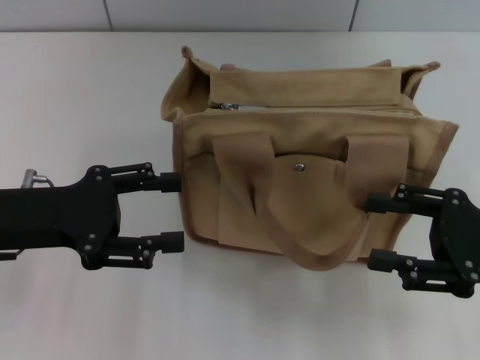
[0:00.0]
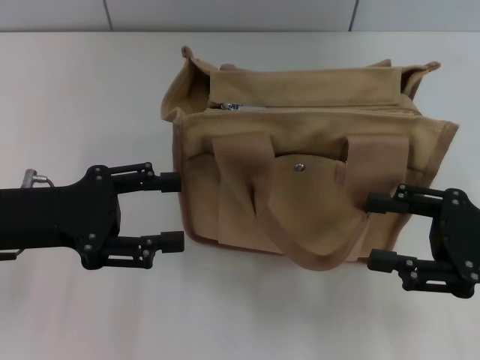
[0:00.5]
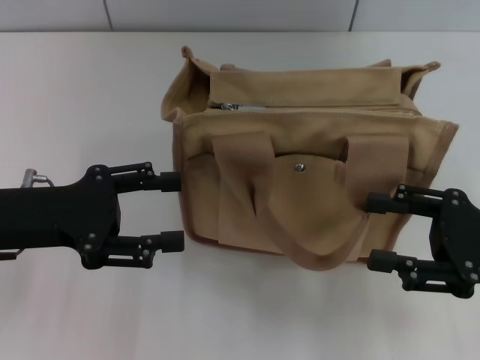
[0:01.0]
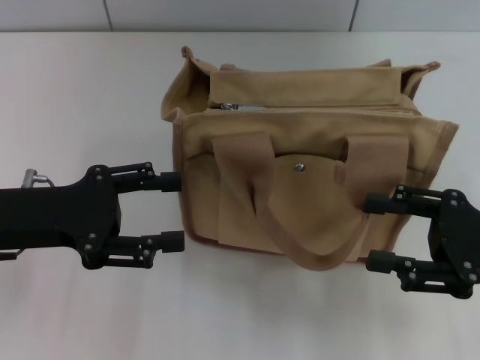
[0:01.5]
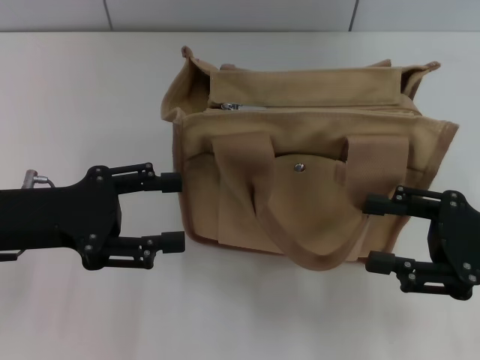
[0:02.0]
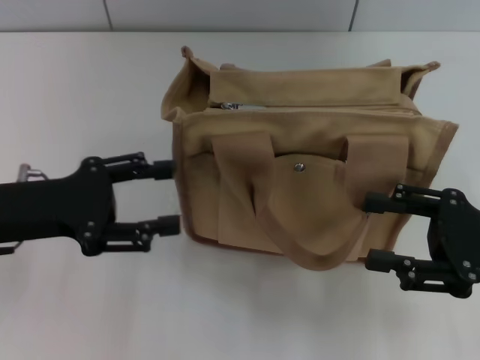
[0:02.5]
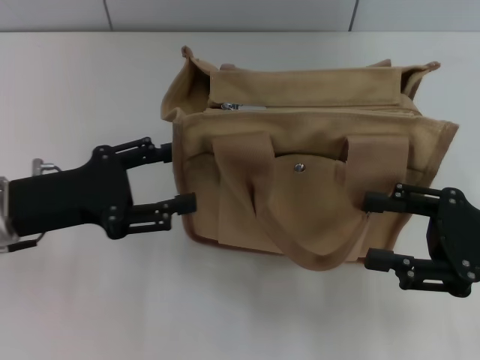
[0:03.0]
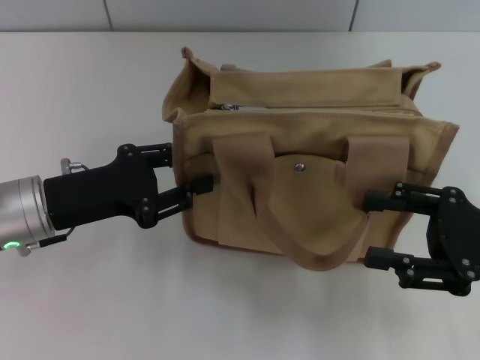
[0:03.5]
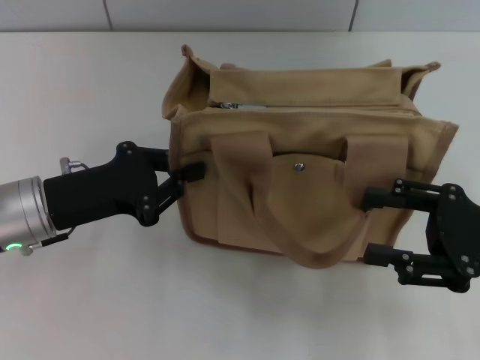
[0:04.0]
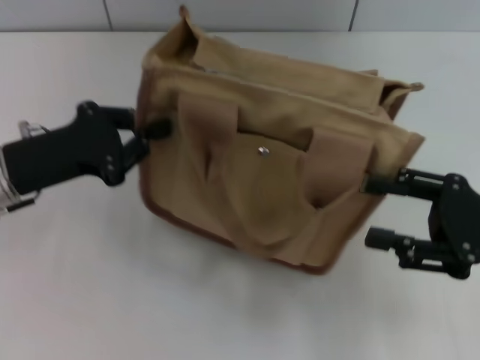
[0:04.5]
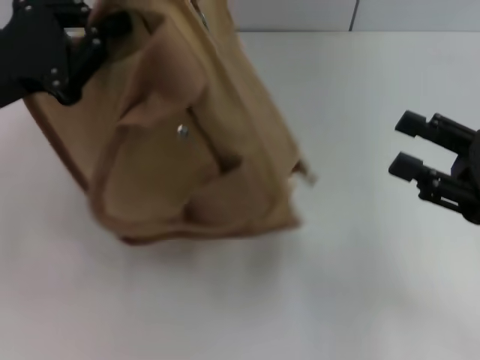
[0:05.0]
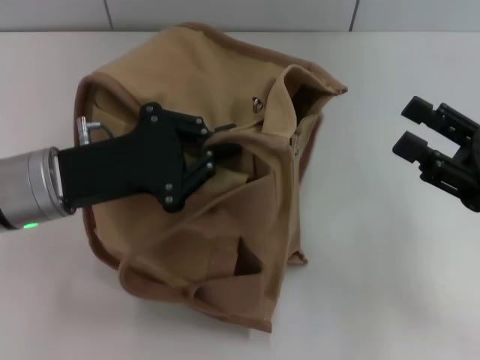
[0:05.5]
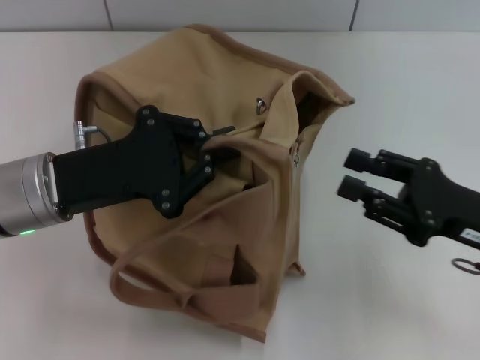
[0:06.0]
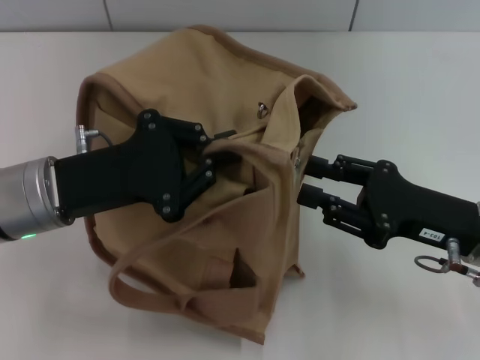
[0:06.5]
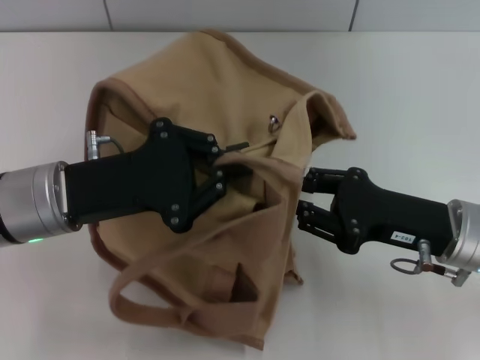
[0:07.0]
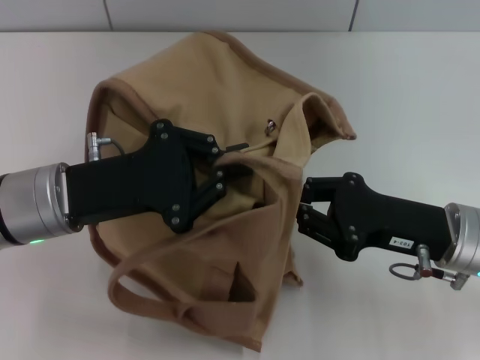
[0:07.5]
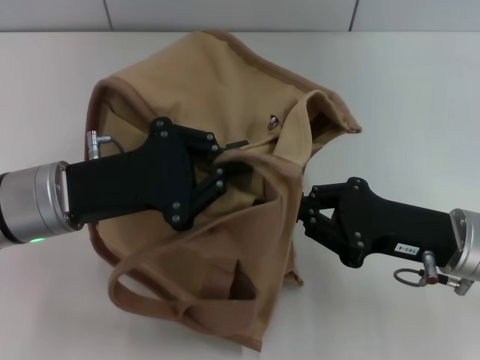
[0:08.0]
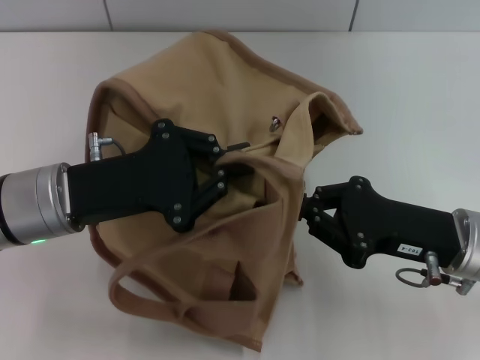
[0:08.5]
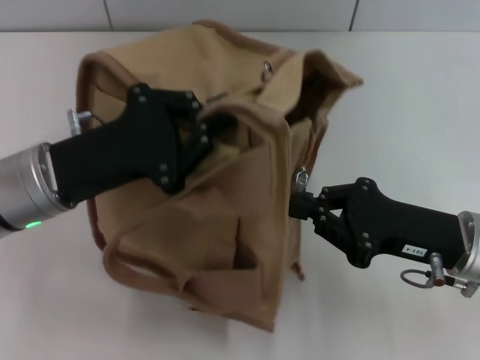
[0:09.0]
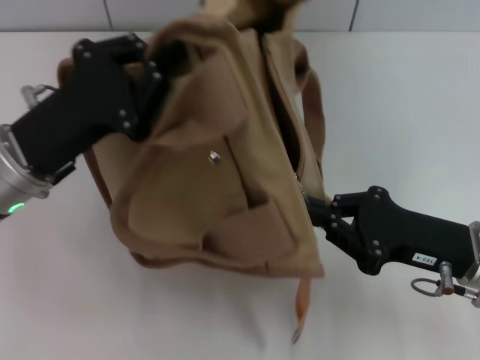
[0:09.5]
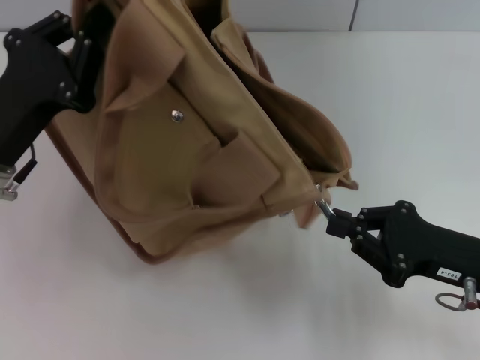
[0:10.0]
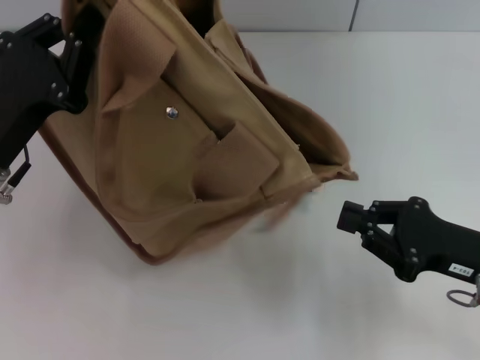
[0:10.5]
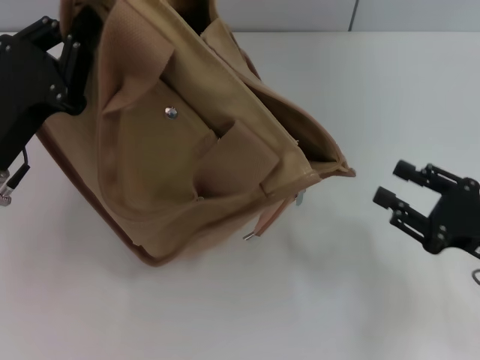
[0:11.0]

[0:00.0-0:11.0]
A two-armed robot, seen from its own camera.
Step, 0:00.0 to 0:10.0: Pull open the zipper with your right hand.
0:00.0 to 0:02.0: Both grippers stay about where they are.
0:02.0 to 0:03.5: The left gripper closes.
0:03.5 to 0:05.5: The left gripper reaches about 10 cm upward, then returns, and closes up.
0:05.5 to 0:07.5: The right gripper travels to the left by some 10 cm, and closes its fingers.
0:09.0 to 0:11.0: The right gripper heads to the right, covering some 5 cm, and opens its fingers.

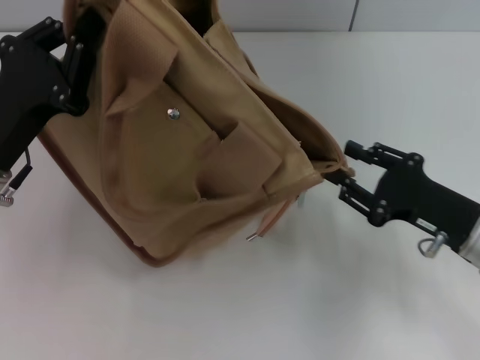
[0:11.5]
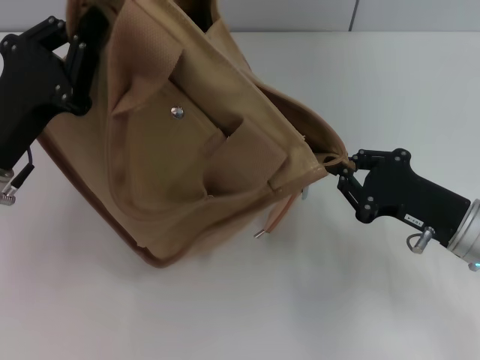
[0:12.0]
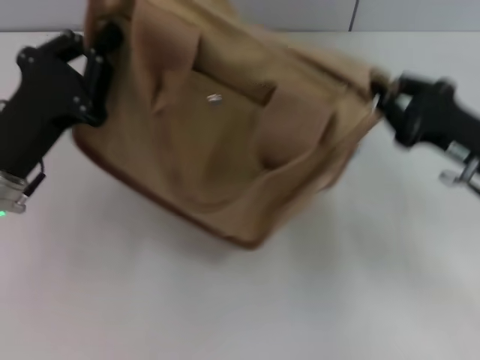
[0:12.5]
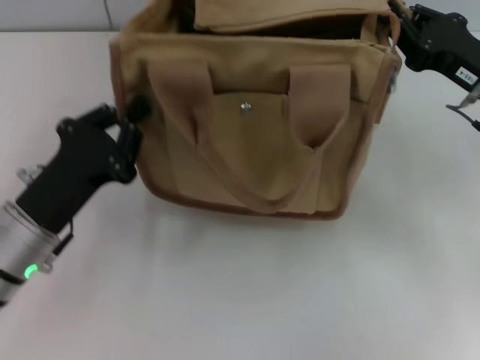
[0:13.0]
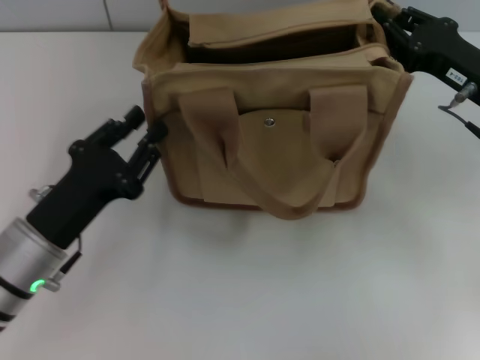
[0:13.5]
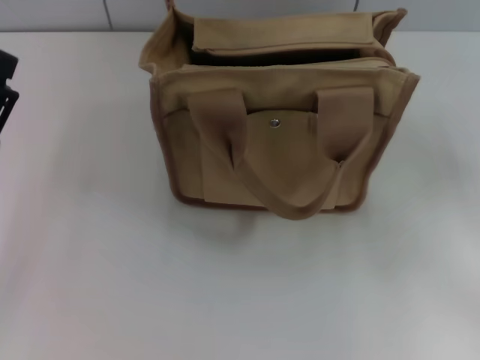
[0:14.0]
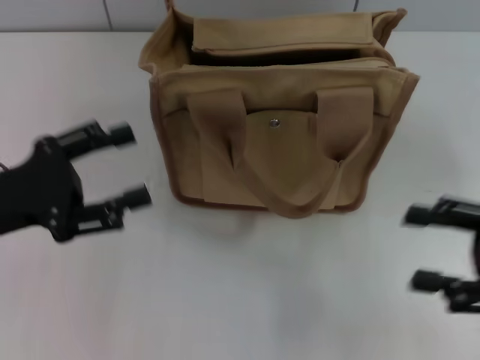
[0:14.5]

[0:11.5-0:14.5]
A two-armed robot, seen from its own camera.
Step, 0:11.5 to 0:13.5: Grab the bag with your left hand.
0:11.5 to 0:13.0: The left gripper changes place by roughly 5 cm, while the right gripper shifts approximately 10 cm forward and upward, and closes.
0:13.0 to 0:14.5: The right gripper shifts about 15 cm backward, and opens up. Meanwhile the left gripper is displaced to the left and upward by roughly 10 cm, and opens up.

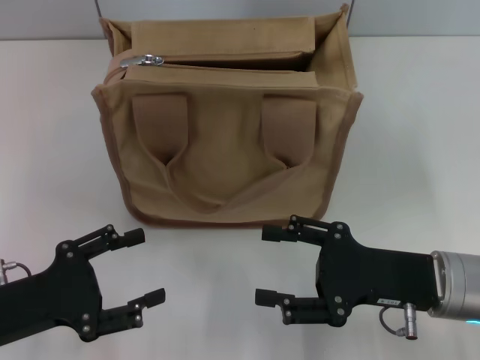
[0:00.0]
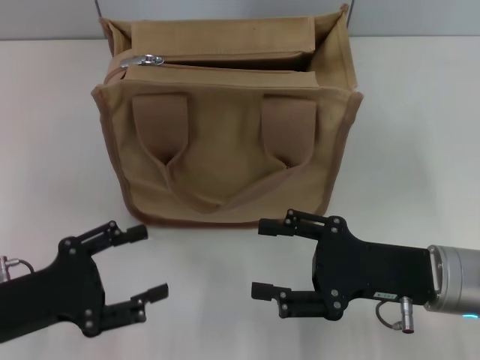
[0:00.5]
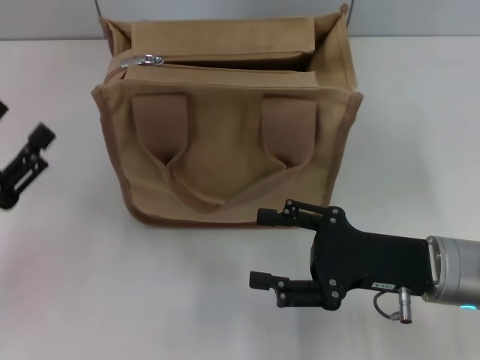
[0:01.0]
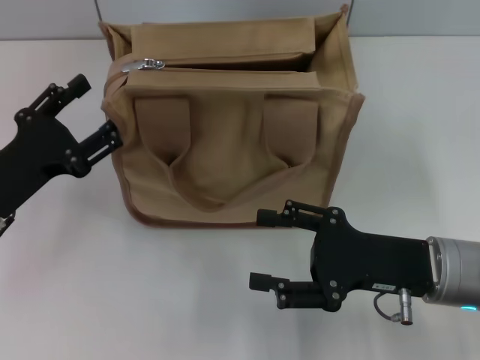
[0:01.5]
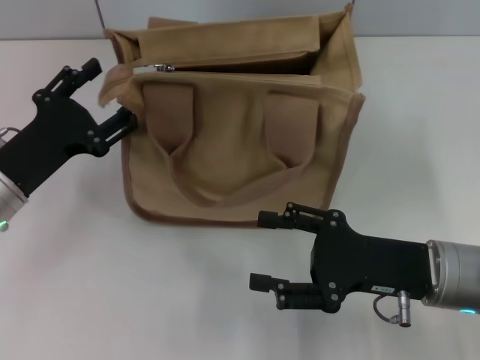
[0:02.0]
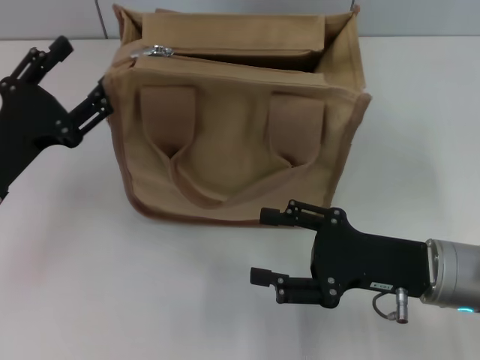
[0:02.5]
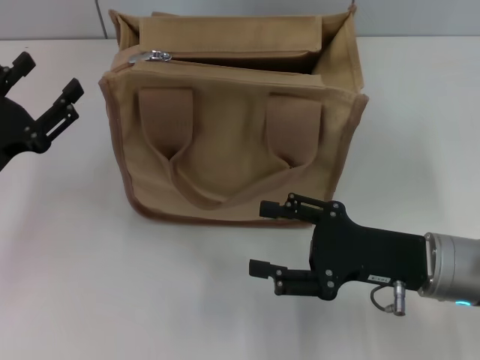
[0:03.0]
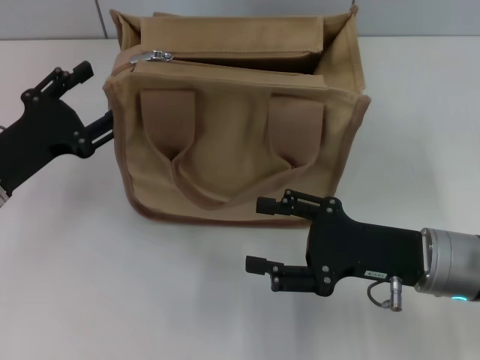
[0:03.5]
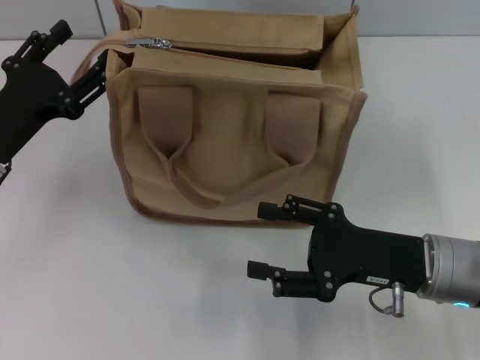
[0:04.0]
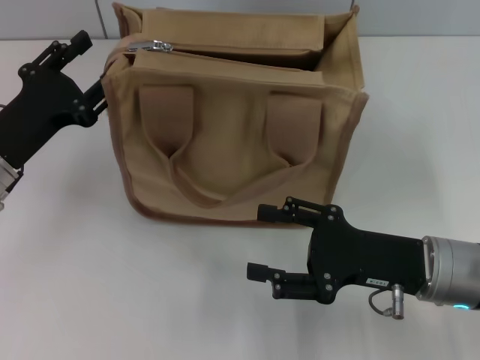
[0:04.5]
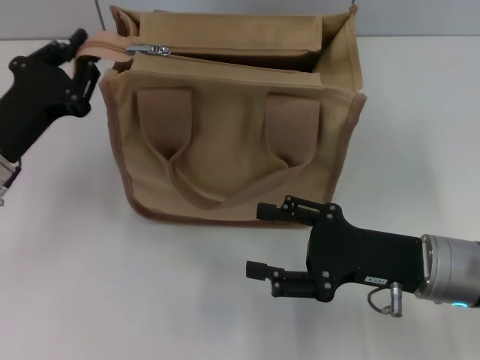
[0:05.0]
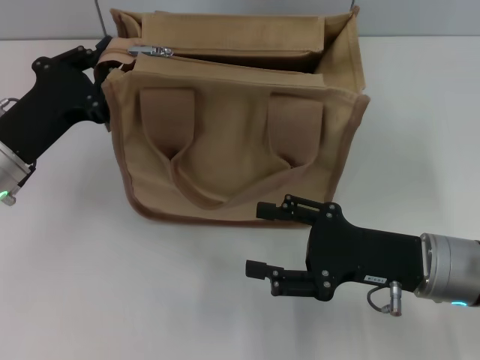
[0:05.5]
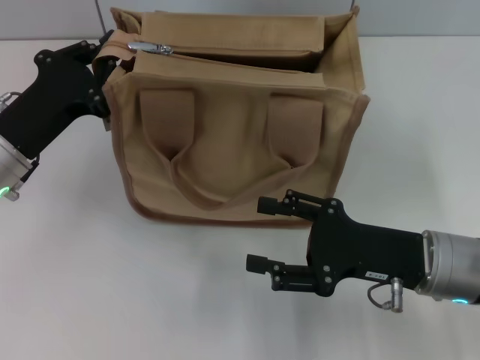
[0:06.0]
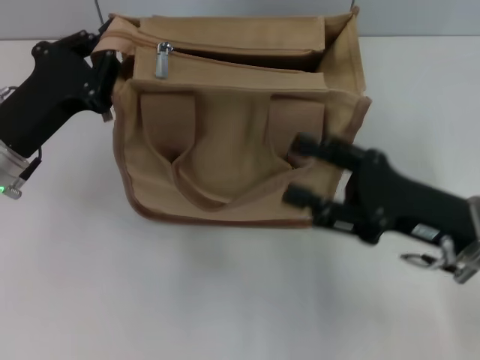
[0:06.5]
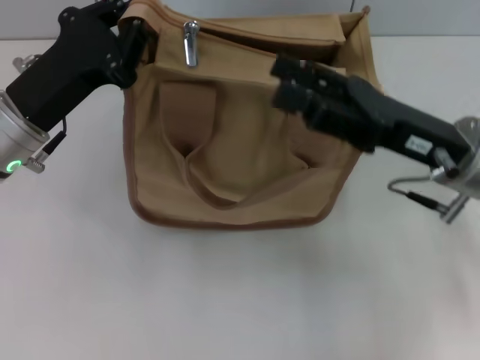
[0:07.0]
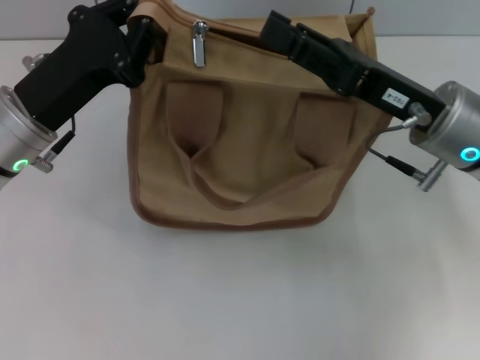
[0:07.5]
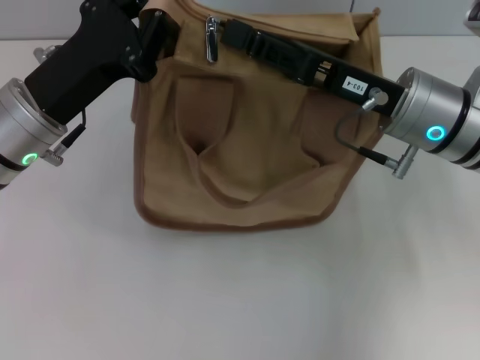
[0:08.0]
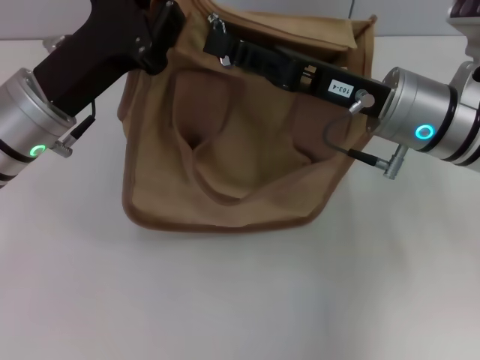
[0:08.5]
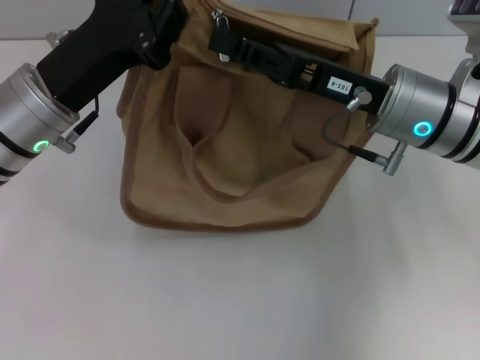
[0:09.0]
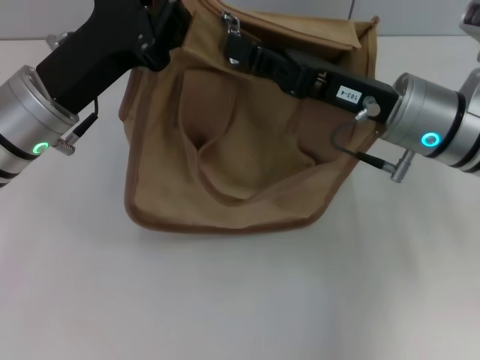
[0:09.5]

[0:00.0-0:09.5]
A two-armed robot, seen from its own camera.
0:00.0 to 0:02.0: The left gripper travels forward by roughly 10 cm.
0:02.0 to 0:04.0: The grippers make only small movements.
0:04.0 to 0:05.5: The left gripper closes.
0:05.5 to 0:07.5: The right gripper goes approximately 10 cm upward and forward; the left gripper ends up roughly 5 cm from where it was.
0:07.5 to 0:09.5: The right gripper closes.

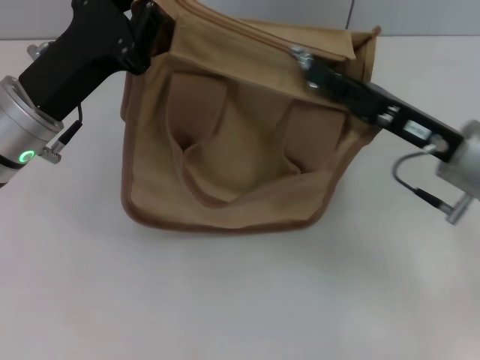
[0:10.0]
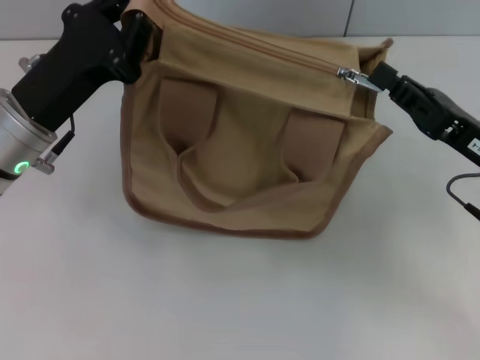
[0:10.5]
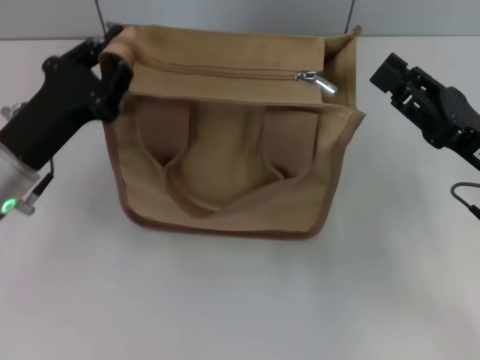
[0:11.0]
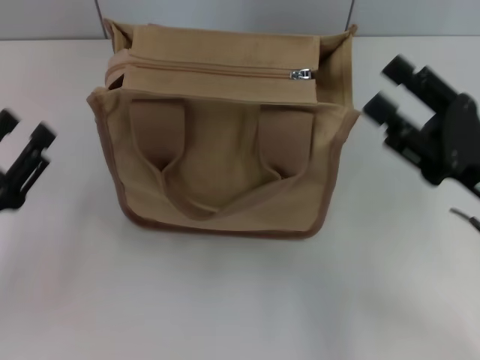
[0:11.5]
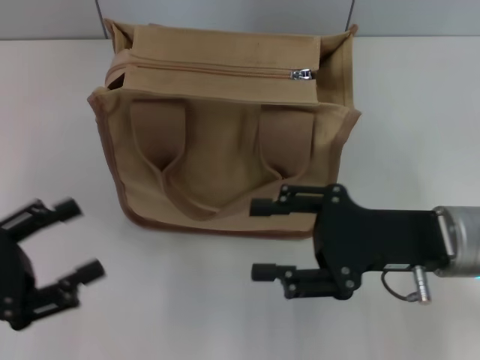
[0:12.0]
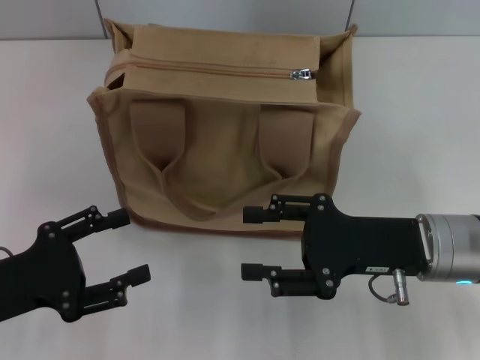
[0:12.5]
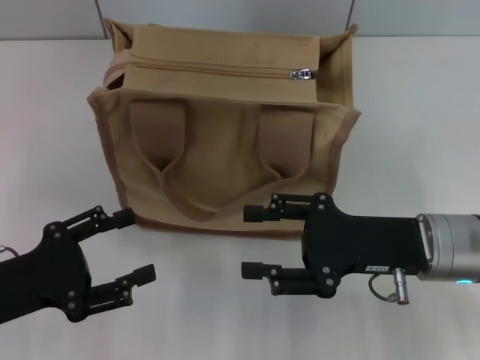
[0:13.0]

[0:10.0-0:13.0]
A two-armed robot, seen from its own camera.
0:10.0 to 0:11.5: The right gripper heads backward, covering some 5 cm, and opens its fingers. Meanwhile the left gripper shifts roughly 15 cm backward, to the left and downward, and opens.
0:11.5 to 0:13.0: The right gripper goes about 5 cm to the left; the left gripper opens its fingers.
